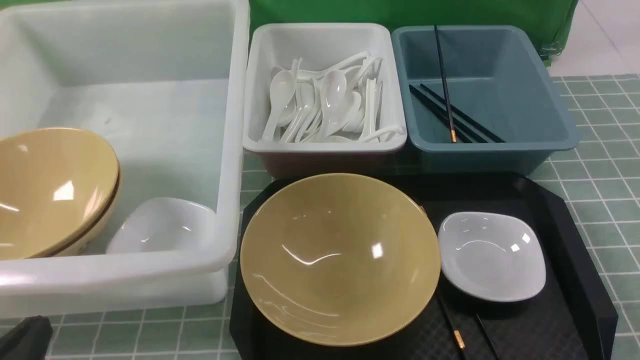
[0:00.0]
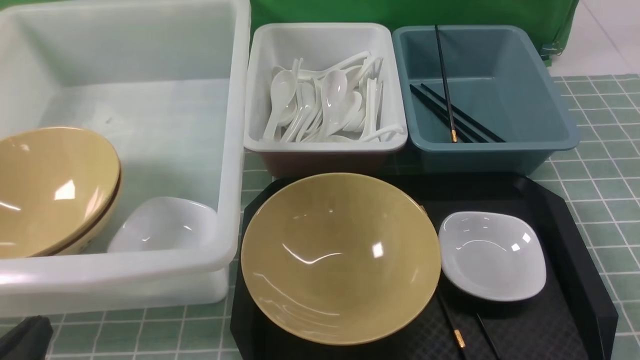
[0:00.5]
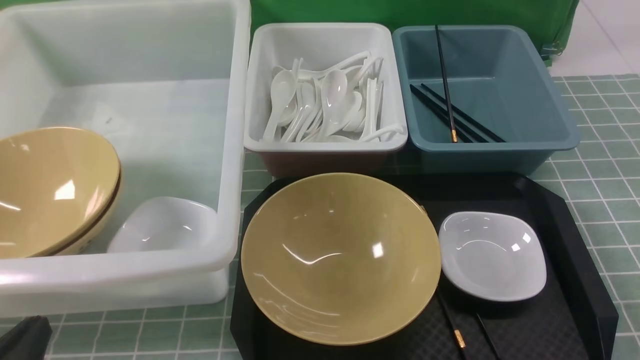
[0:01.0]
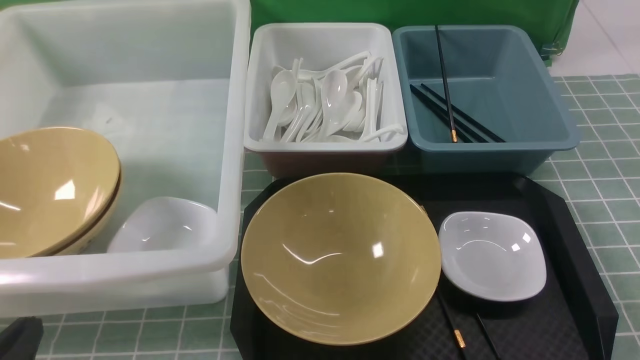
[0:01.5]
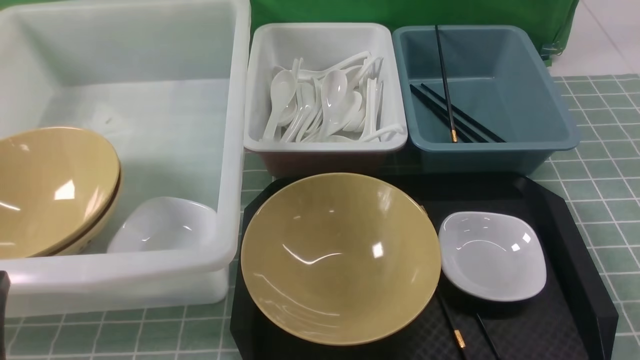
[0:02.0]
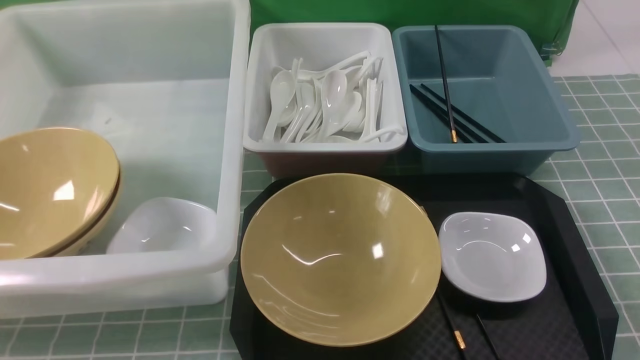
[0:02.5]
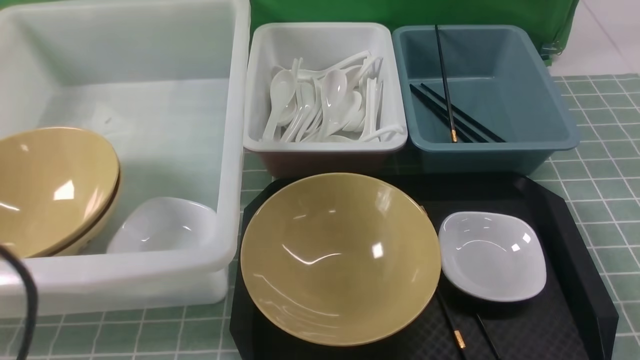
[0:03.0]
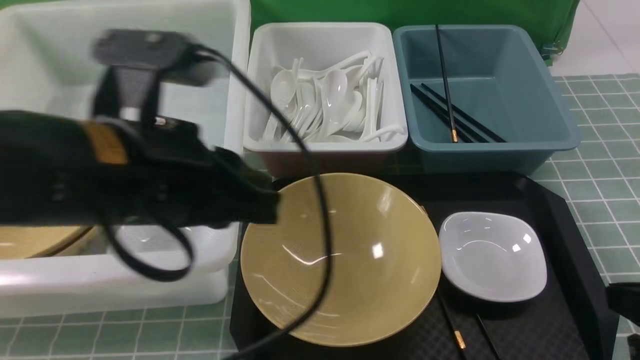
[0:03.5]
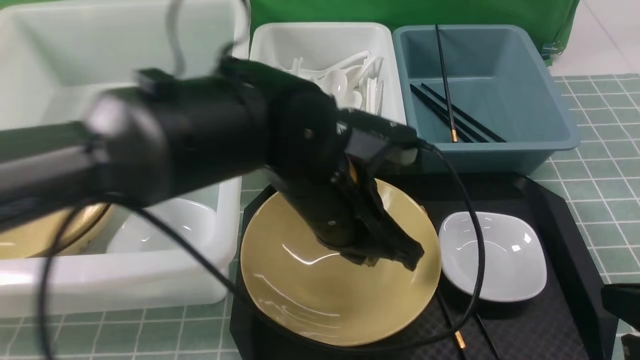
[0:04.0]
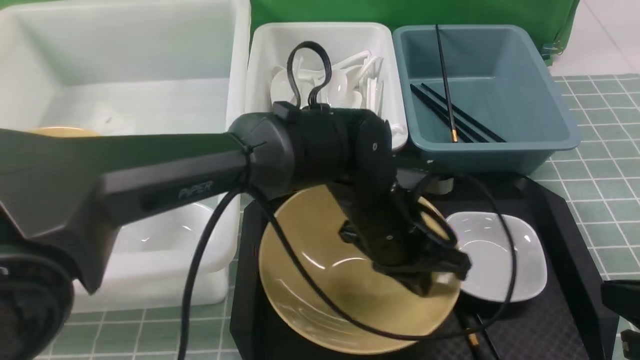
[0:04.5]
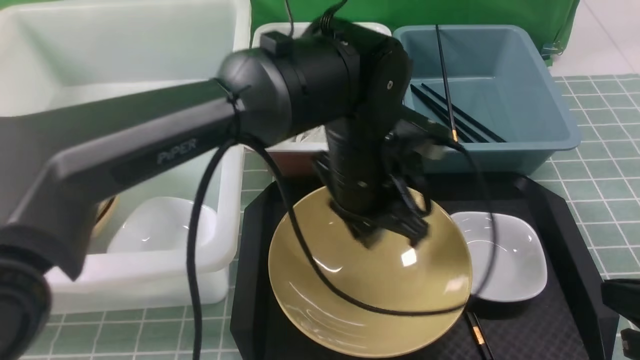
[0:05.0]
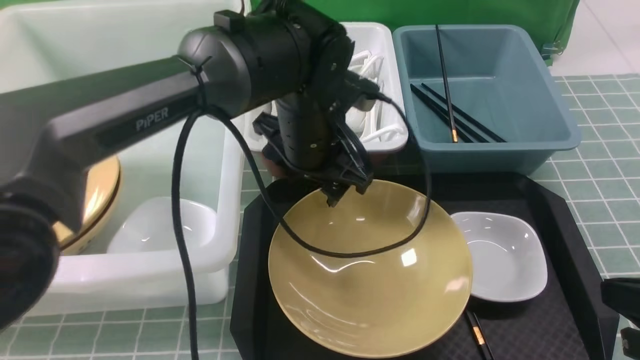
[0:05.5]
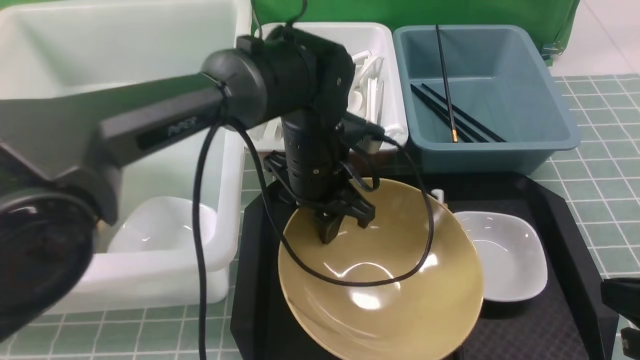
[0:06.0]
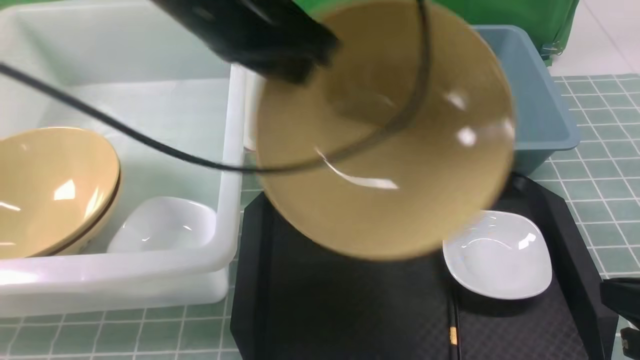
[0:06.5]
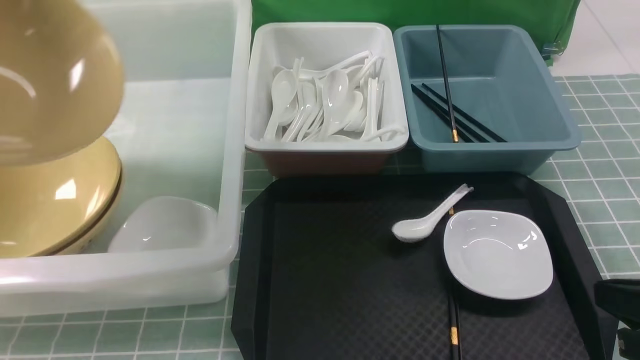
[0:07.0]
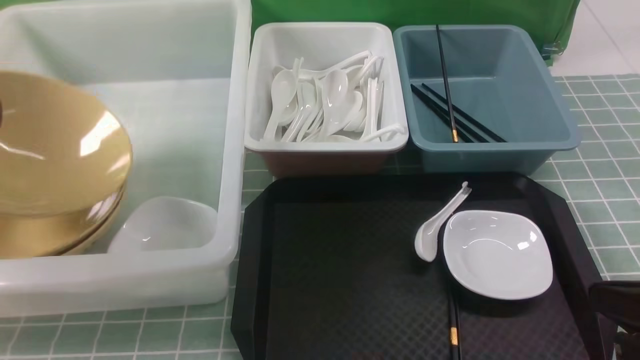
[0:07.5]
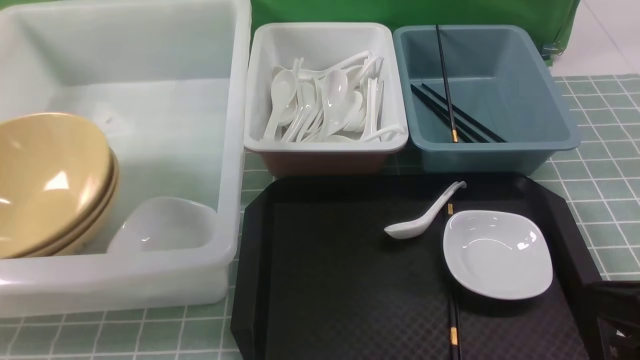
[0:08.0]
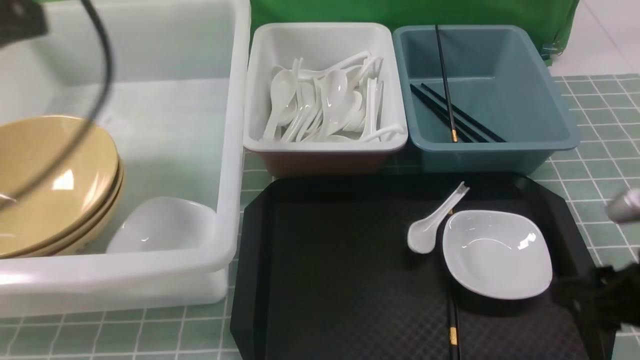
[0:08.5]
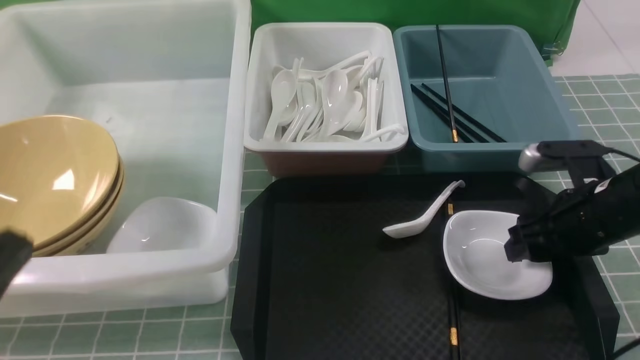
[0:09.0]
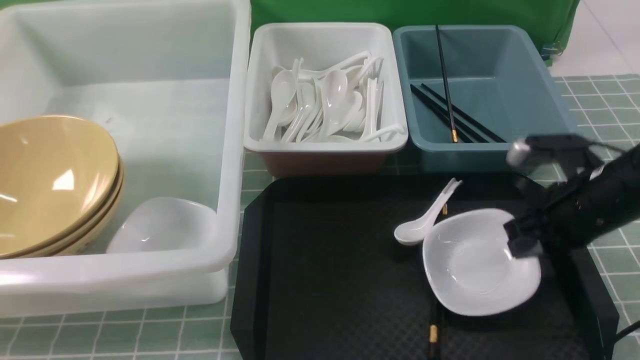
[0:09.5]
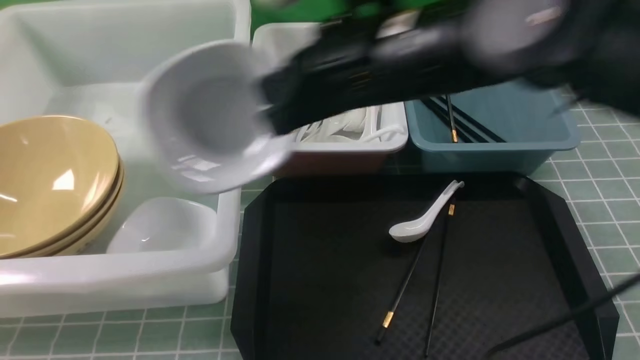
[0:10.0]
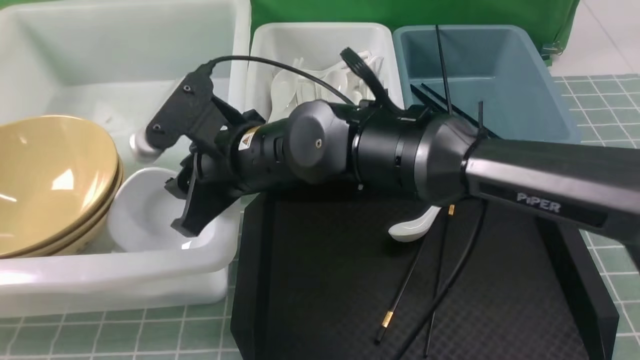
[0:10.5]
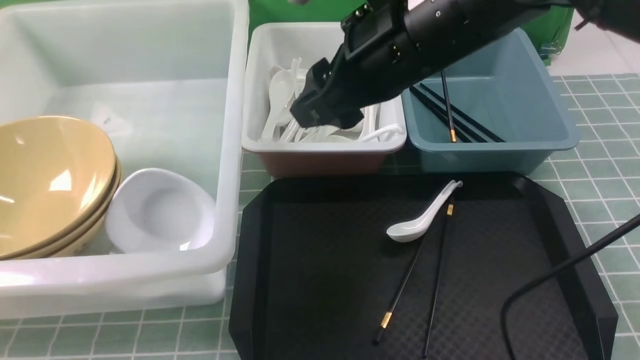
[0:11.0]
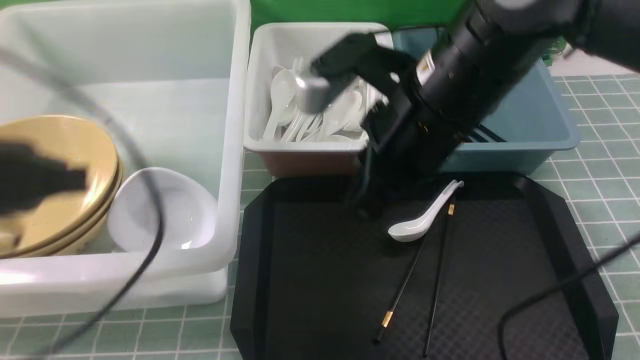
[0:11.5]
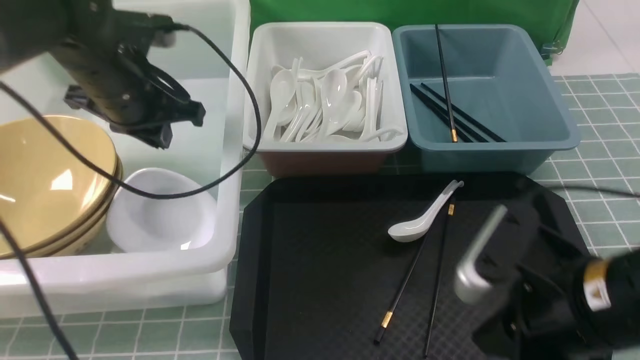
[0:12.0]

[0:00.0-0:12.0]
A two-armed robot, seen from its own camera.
Task of the whole recording: on blue table put chopsticks spoon bowls plates into blue grey white boxes.
Step, 0:00.0 to 0:06.0: use the left arm to grab the yellow noodle bowl on the left.
Step, 0:06.5 to 0:08.0: use the left arm to put the noodle bowl into the large storage box on the left.
Step, 0:08.5 to 0:09.5: use the right arm to grab the plate.
Step, 0:10.0 to 0:10.5: use the right arm to put the plate into the large storage box on the left.
0:02.0 to 0:04.0: The right gripper heads forward, covering approximately 5 cm, and closes. Meanwhile the left gripper travels to the right and forward by some 35 cm.
0:04.0 to 0:06.0: The left gripper travels forward by approximately 10 cm, and opens up.
0:06.0 to 0:08.0: The left gripper heads to the left, covering some 35 cm, and opens.
0:08.0 to 0:10.0: The left gripper travels backward, to the right and downward by about 25 cm, and closes. The right gripper travels to the left and forward by approximately 30 cm, and opens, then closes once more.
0:10.0 to 0:12.0: The left gripper goes approximately 35 cm forward. The right gripper is displaced to the right, backward and downward by approximately 20 cm, and opens, then closes once more.

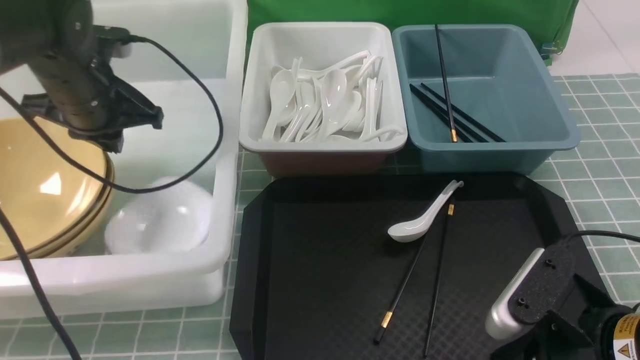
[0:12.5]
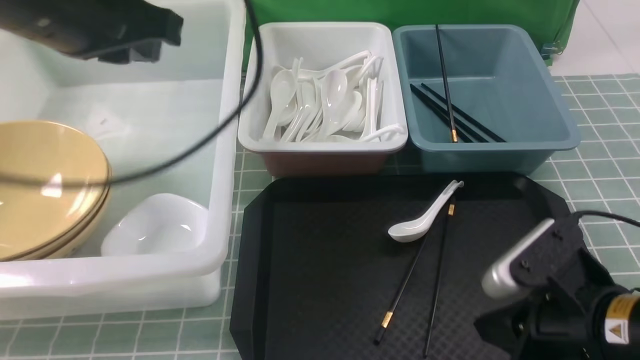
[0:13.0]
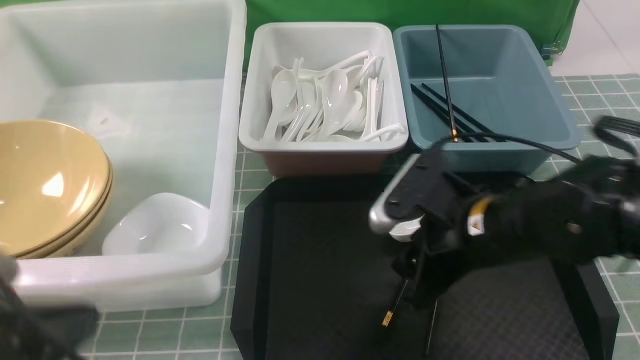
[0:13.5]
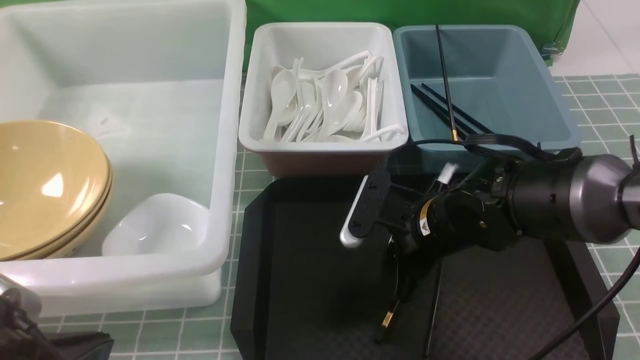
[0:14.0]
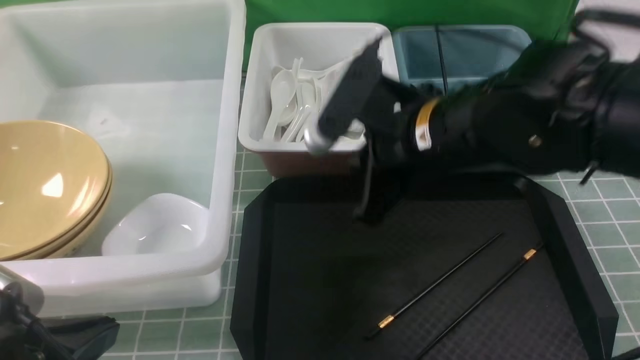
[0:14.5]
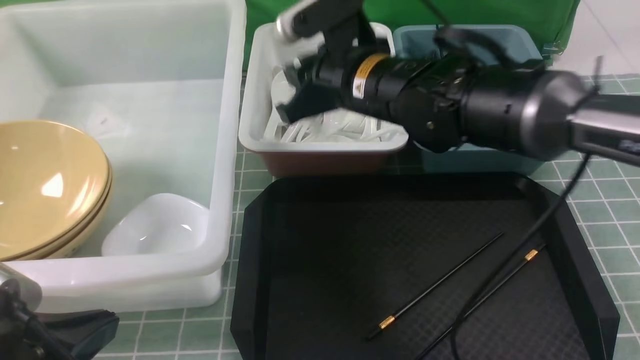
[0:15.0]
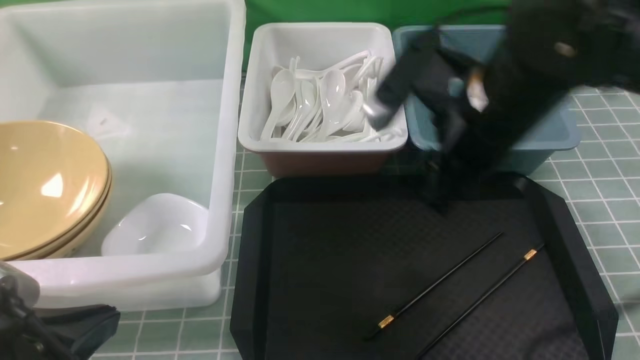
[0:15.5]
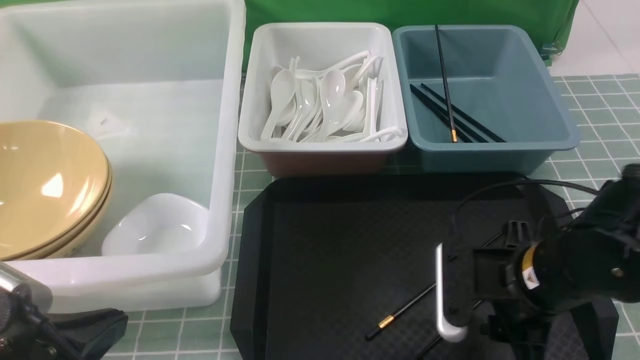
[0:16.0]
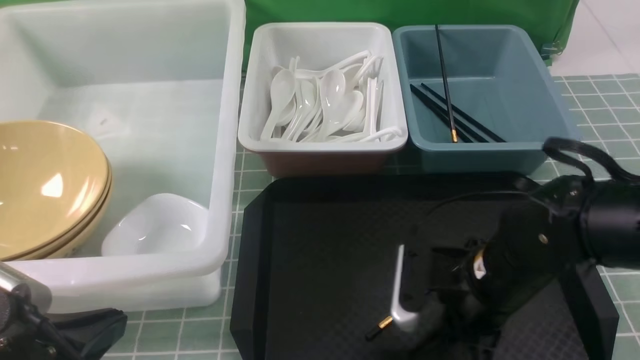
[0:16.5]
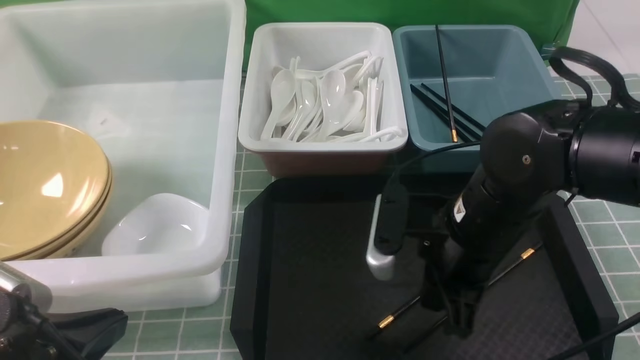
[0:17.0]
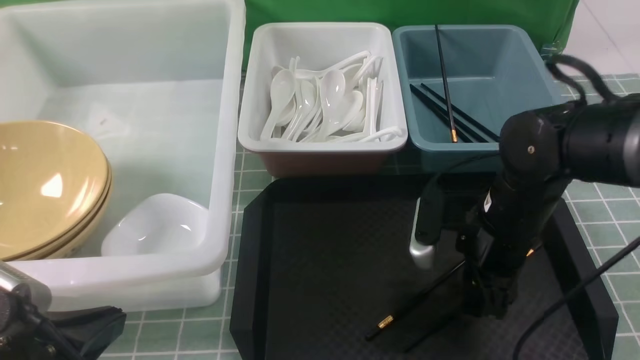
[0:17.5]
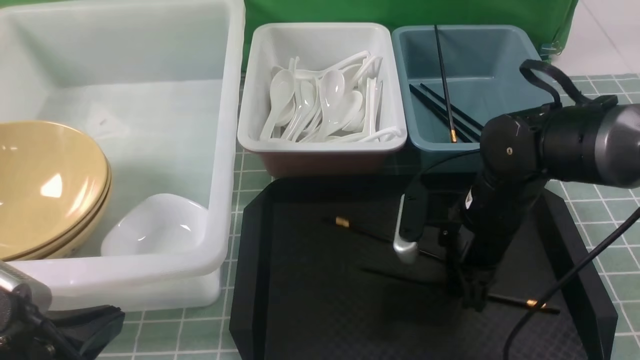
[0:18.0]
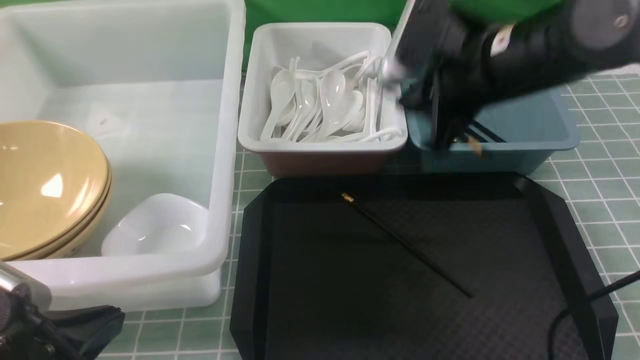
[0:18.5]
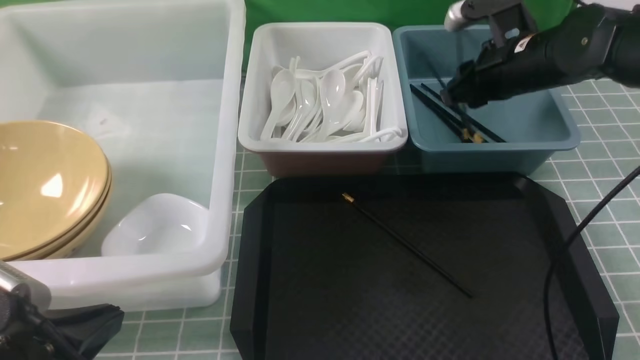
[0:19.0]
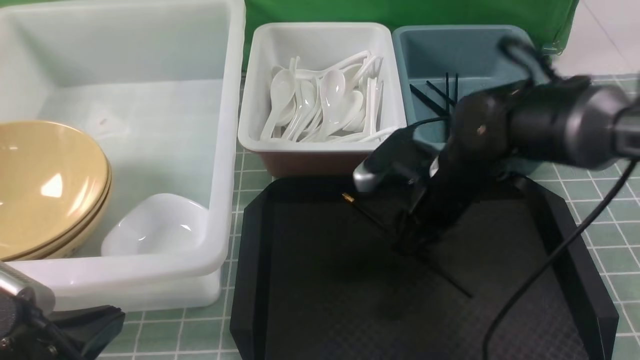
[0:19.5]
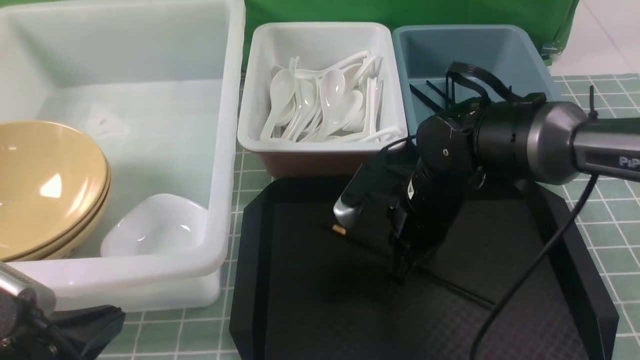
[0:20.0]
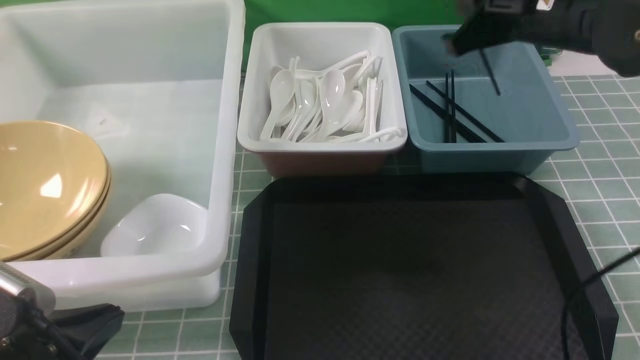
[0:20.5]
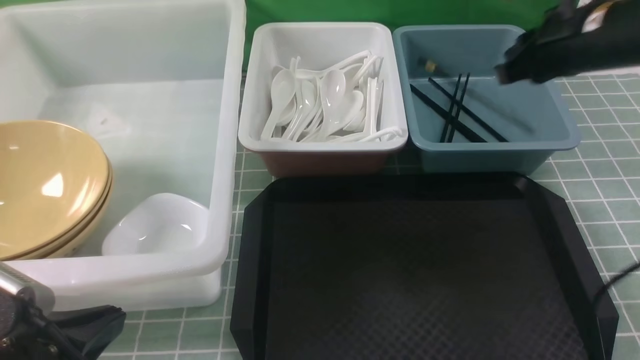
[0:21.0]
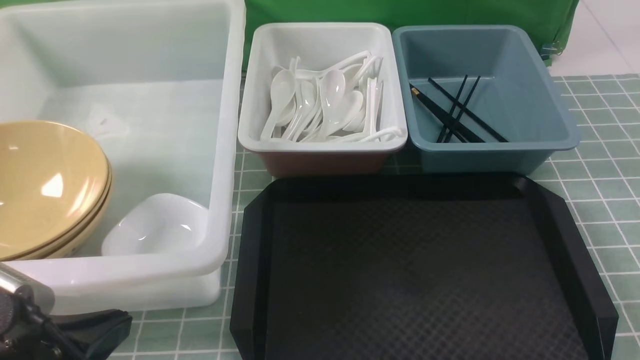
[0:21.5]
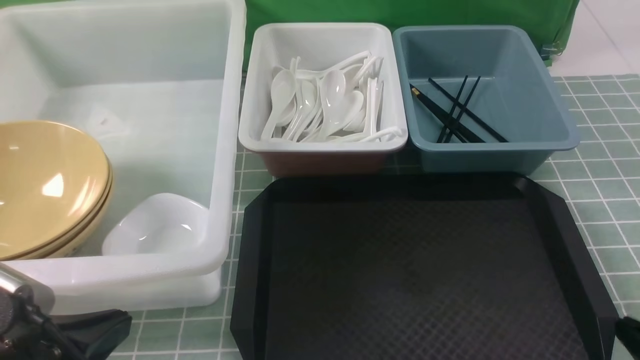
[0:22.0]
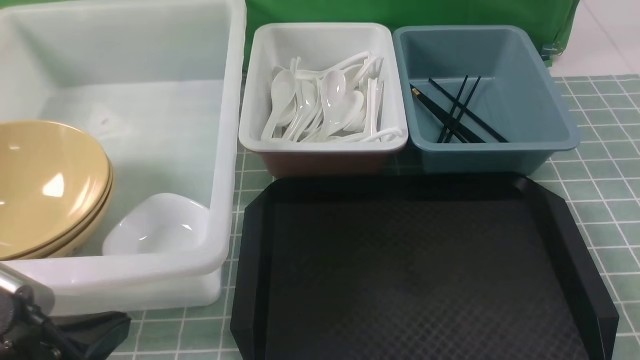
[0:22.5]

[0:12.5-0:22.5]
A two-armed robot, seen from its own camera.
Task of the whole recording: on blue table put chopsticks spoon bowls plates into blue grey white boxes.
Step, 0:14.5 to 0:15.5: use the right arm to put the soup spoon into the small storage box in the middle.
Step, 0:16.0 to 0:18.0: use the right arm to grab a chopstick.
Step, 0:18.5 to 0:19.0: use the right arm to put a chopstick into the small storage box on the right.
Step, 0:20.5 to 0:21.0: use the right arm to put a chopstick into the small storage box on the right.
0:12.5 to 0:14.5: The left gripper moves backward, roughly 30 cm. The right gripper heads forward, to the left and upward, covering approximately 20 cm, and opens, then closes again.
0:14.5 to 0:16.5: The right gripper heads downward, to the right and backward, covering approximately 15 cm, and opens, then closes again.
0:16.5 to 0:18.5: The right gripper heads upward and forward, covering approximately 15 cm, and opens, then closes once more.
0:18.5 to 0:20.5: The right gripper moves roughly 10 cm downward and comes back, and opens and closes again.
0:20.5 to 0:22.5: The right gripper heads backward, covering some 30 cm.
